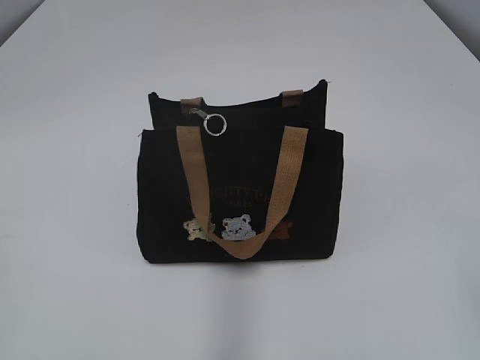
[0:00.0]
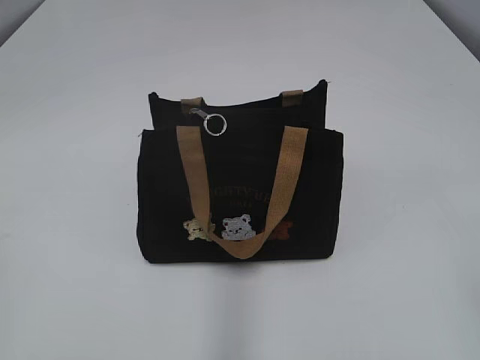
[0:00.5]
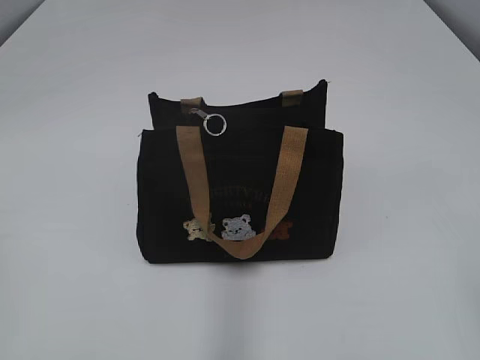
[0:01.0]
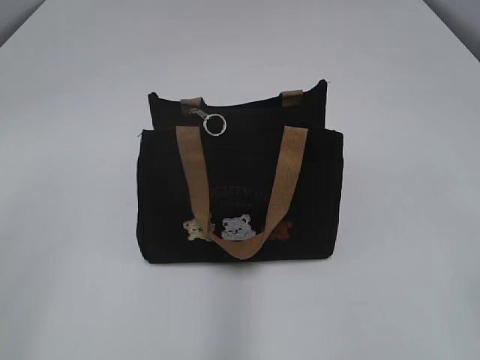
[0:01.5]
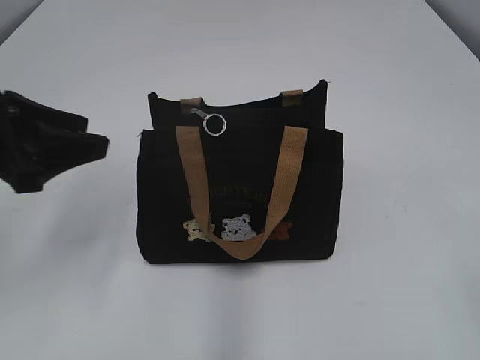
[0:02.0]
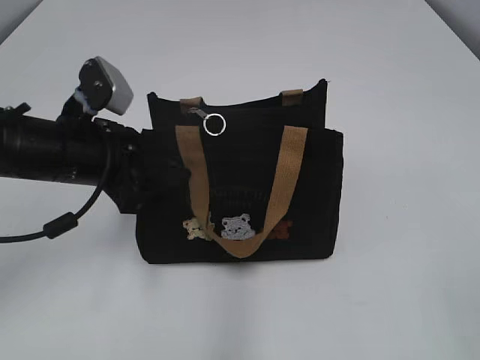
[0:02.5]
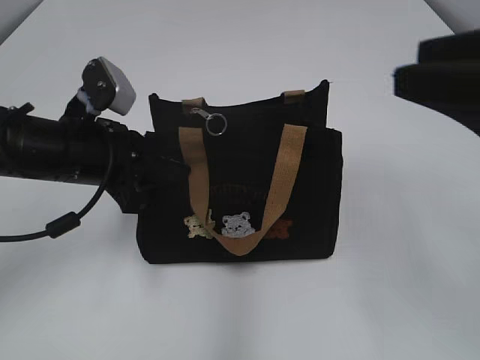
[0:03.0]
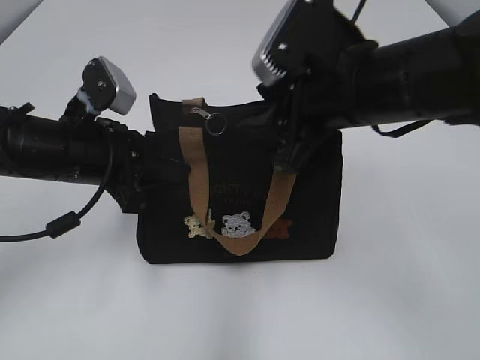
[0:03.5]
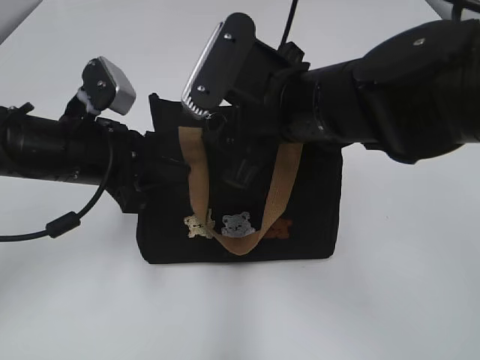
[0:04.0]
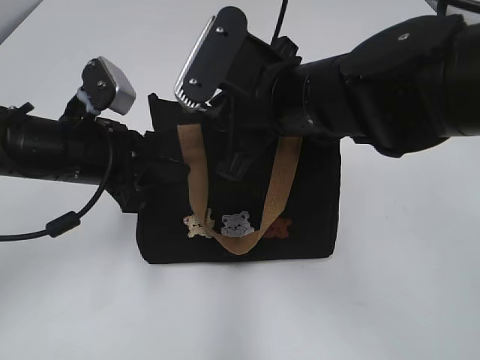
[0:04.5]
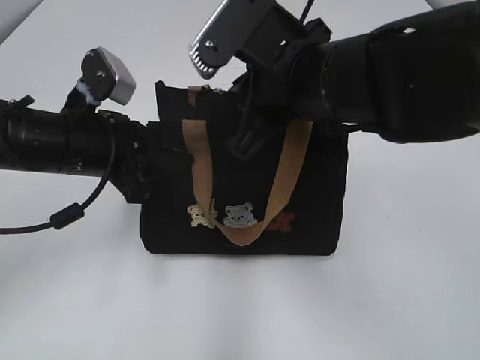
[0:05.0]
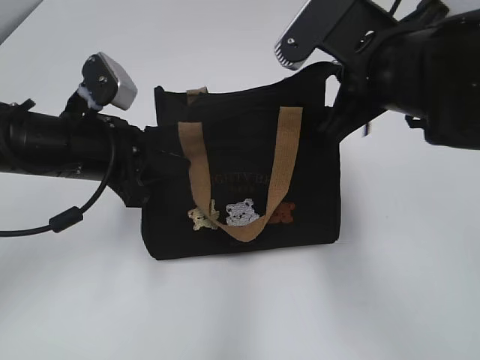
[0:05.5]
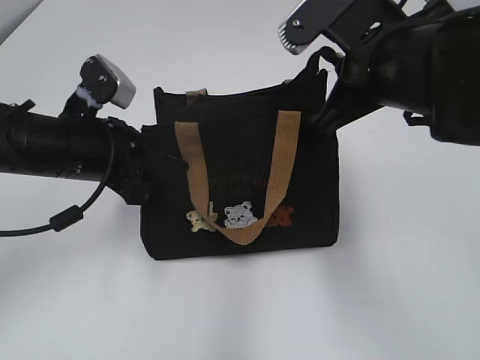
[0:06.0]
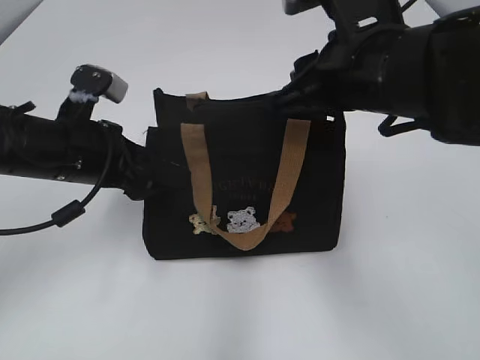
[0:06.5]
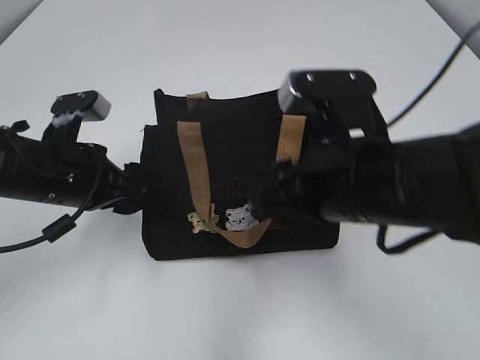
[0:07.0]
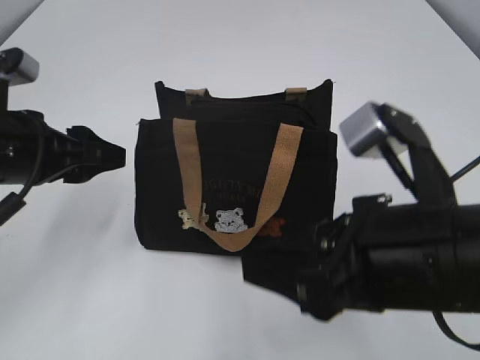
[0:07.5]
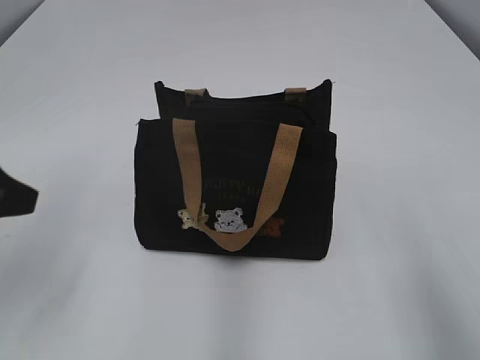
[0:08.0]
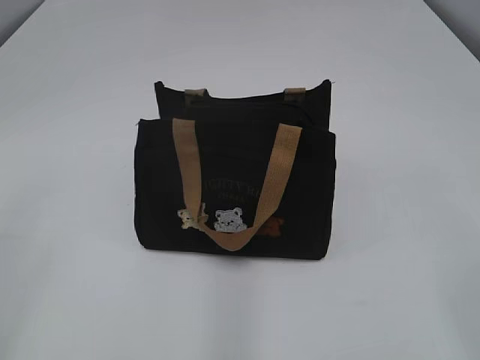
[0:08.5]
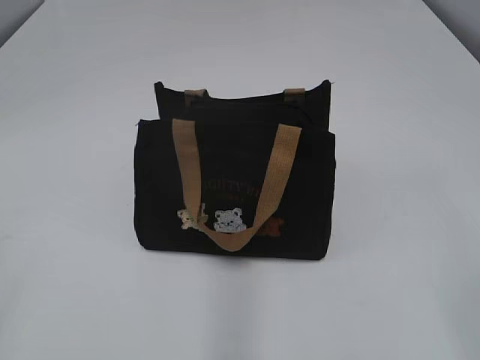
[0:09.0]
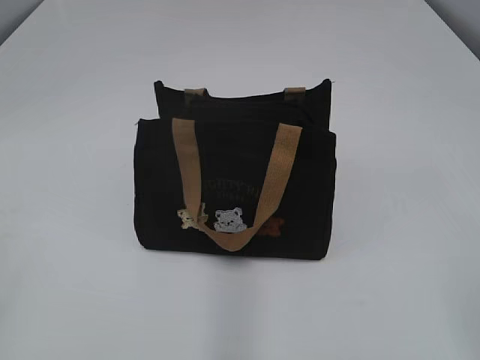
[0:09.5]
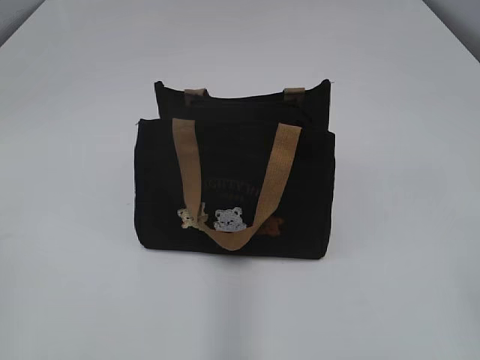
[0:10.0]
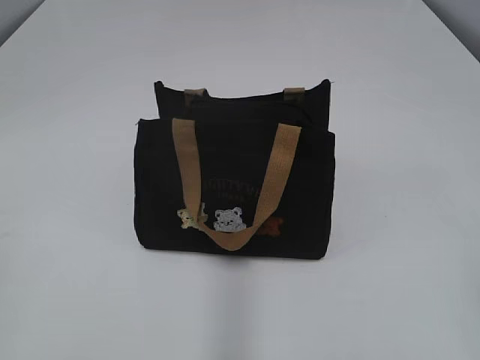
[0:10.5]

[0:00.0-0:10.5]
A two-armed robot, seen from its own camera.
Step, 0:00.0 to 0:06.5: Pull open the zipper with your right hand.
0:02.0 to 0:04.0: The right gripper goes about 35 cm forward and to the left; the left gripper shifts approximately 10 cm to the right, downward and forward, and closes up.
0:04.0 to 0:06.5: The left gripper opens its fingers; the right gripper moves to the right, about 5 cm, and closes.
0:06.5 to 0:08.5: The right gripper goes some 30 cm backward and to the right; the left gripper moves backward, upward and to the left, about 30 cm.

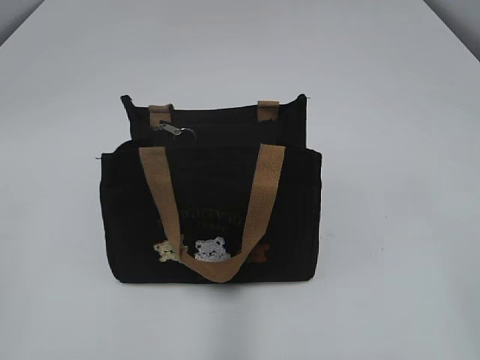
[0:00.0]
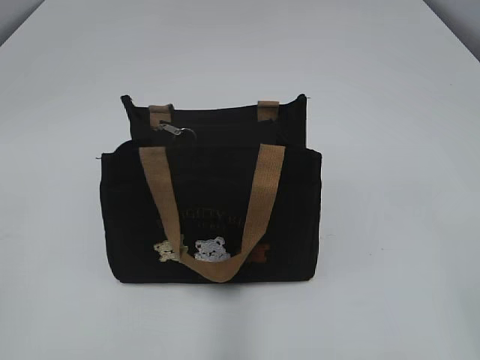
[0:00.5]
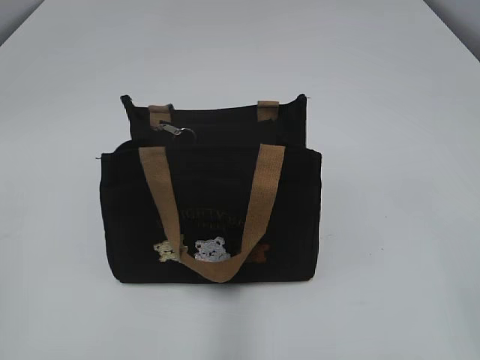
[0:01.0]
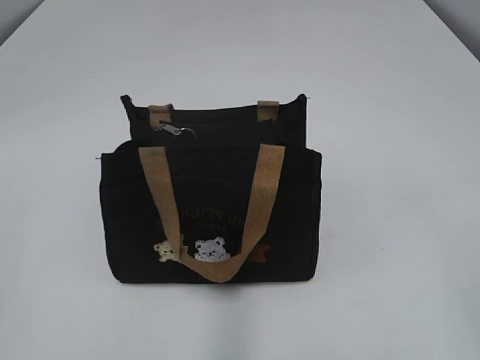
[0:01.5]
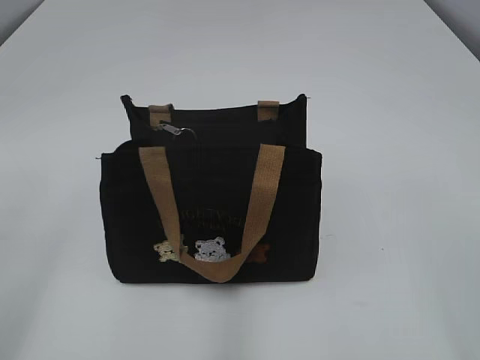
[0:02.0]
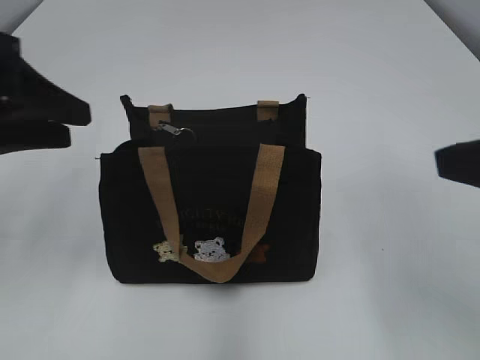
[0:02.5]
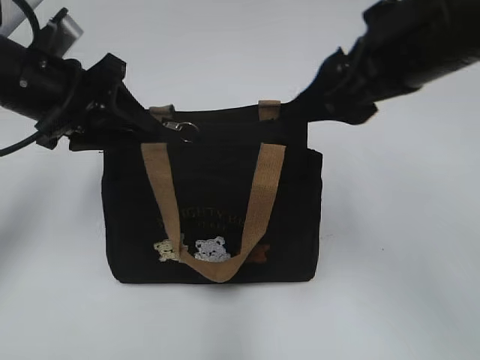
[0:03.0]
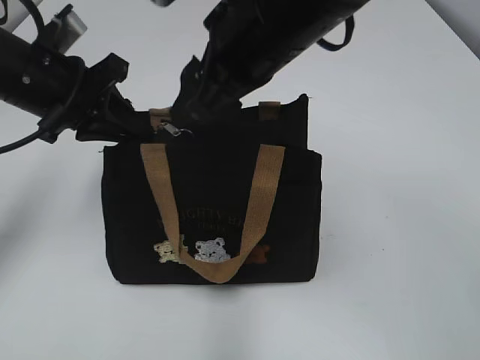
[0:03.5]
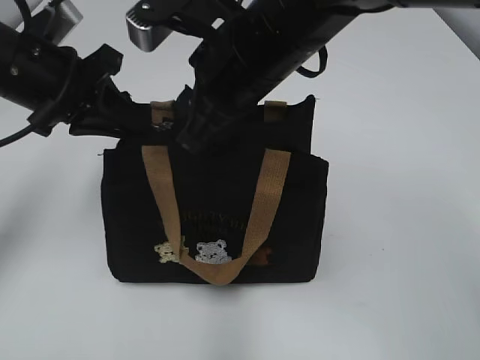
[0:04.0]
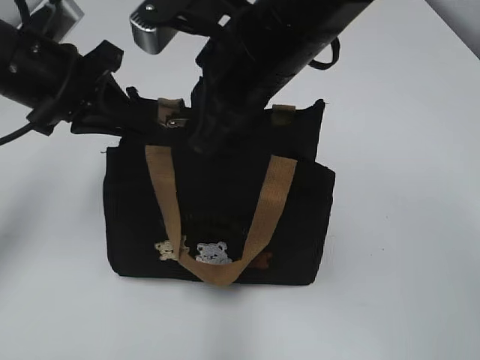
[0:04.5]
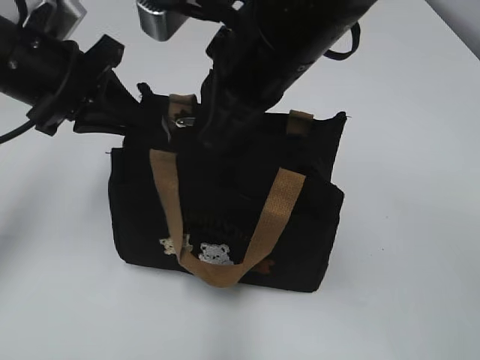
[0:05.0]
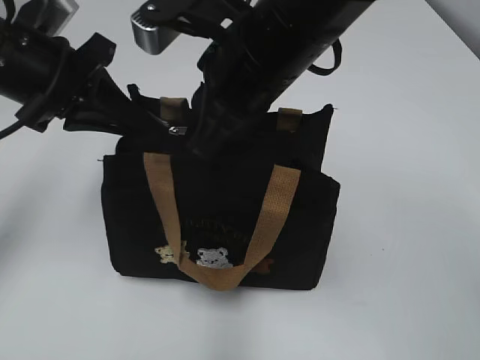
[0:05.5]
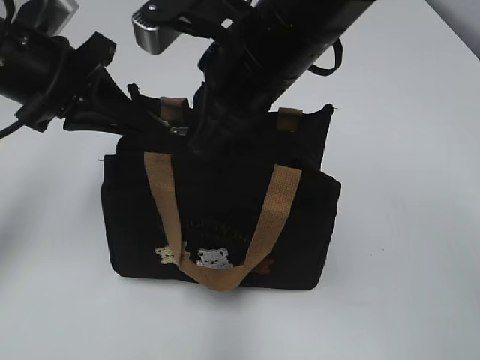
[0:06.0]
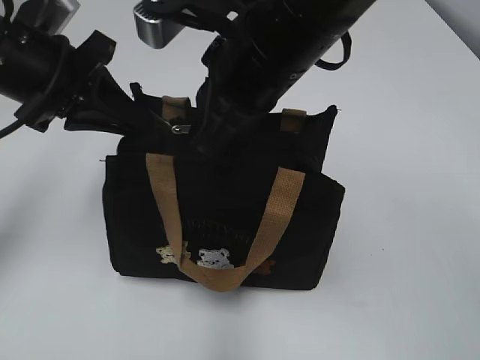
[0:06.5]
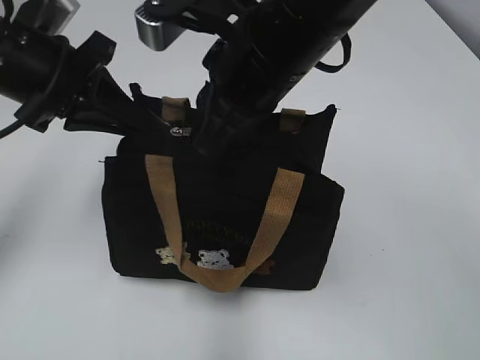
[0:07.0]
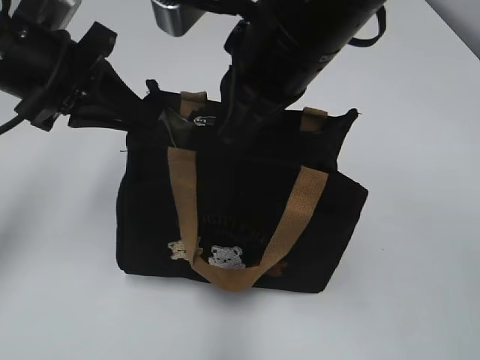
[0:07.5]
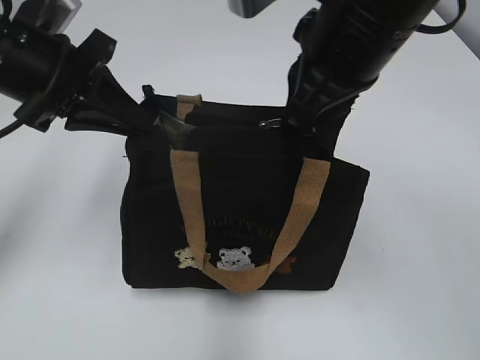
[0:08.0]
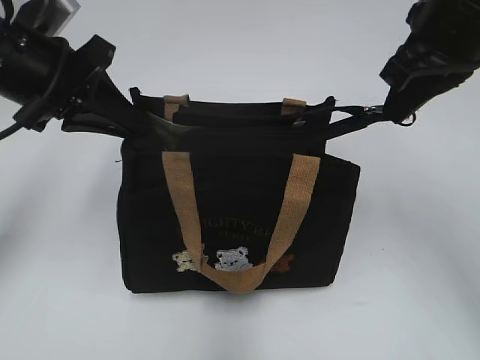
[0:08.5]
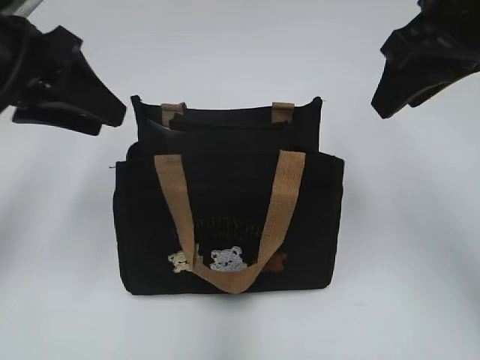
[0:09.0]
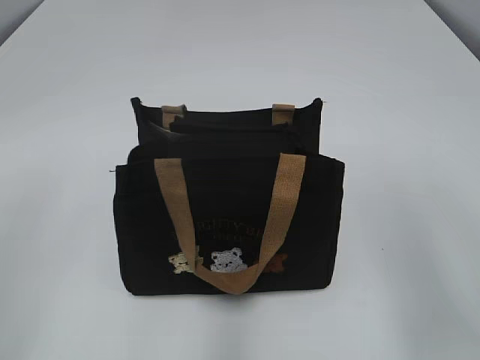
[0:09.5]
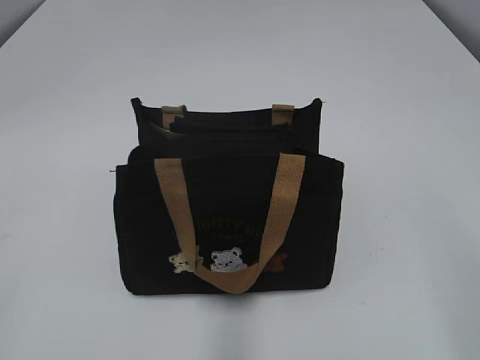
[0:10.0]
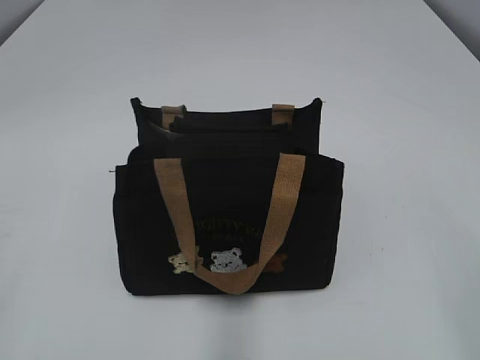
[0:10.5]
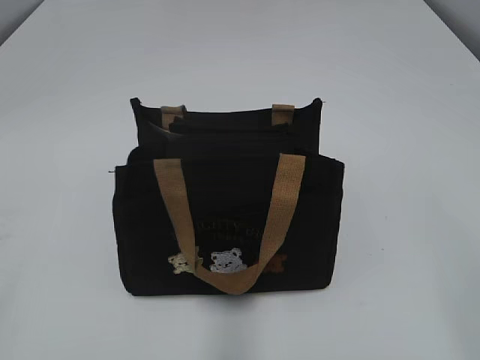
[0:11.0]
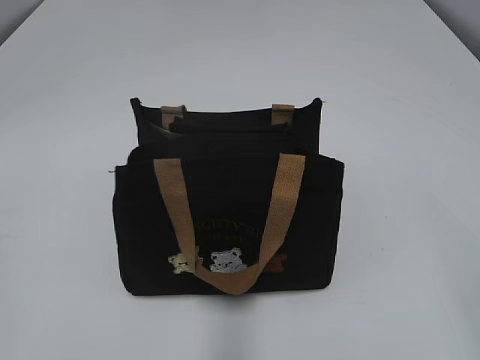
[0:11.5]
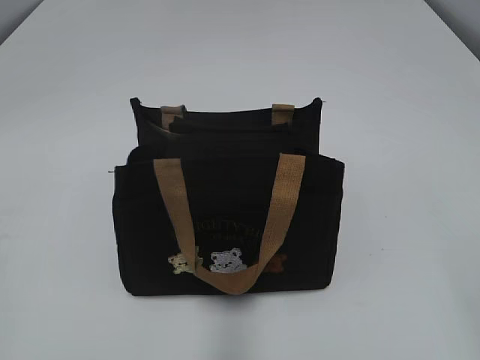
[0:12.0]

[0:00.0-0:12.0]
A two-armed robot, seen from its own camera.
Step, 0:00.0 to 0:08.5: Pull open the zipper with your right hand.
0:02.0 to 0:04.0: The left gripper moves forward, about 30 cm, and closes its fingers. The right gripper heads forward and to the left, covering some 40 cm.
0:04.0 to 0:06.0: The right gripper closes.
0:06.0 to 0:08.0: The right gripper travels to the right by roughly 5 cm.
0:08.0 to 0:10.0: The left gripper shifts about 35 cm backward and to the left, and opens up. The right gripper goes about 30 cm backward and to the right, and opens its fingers.

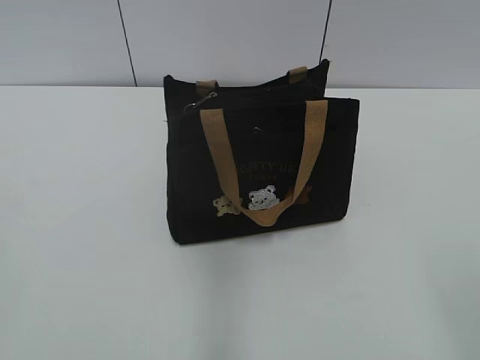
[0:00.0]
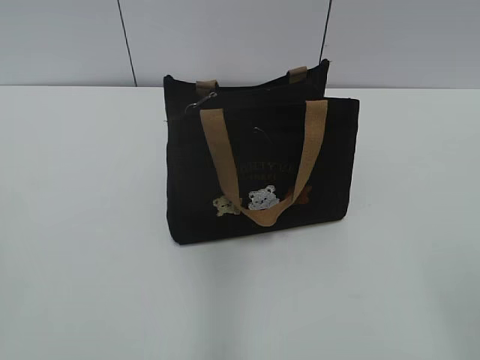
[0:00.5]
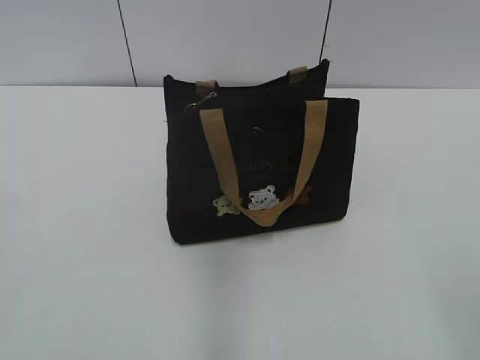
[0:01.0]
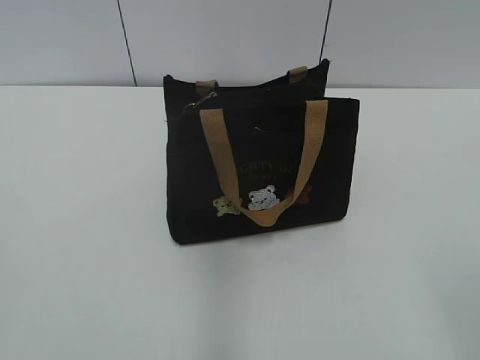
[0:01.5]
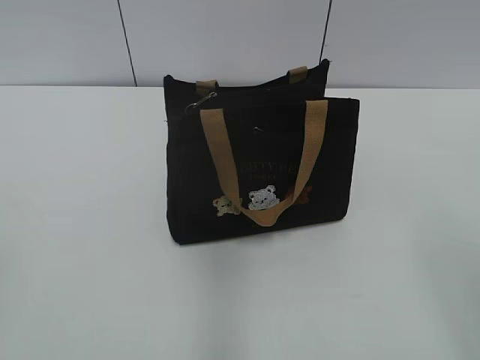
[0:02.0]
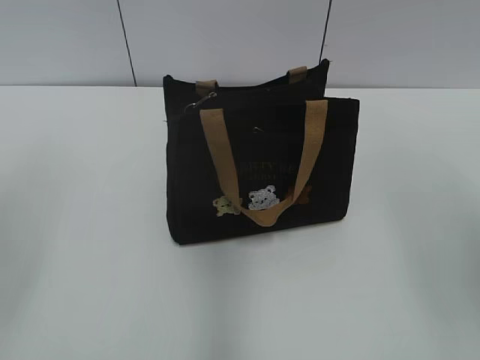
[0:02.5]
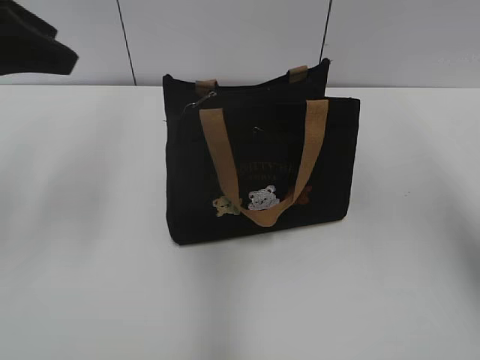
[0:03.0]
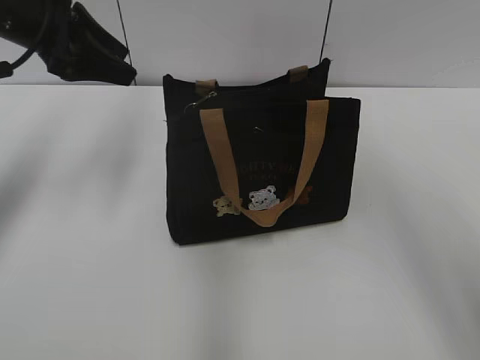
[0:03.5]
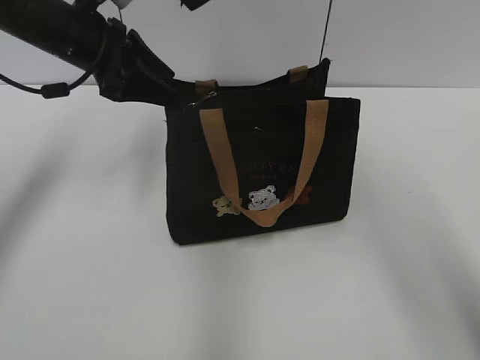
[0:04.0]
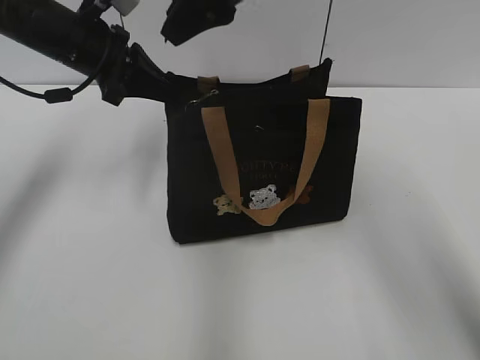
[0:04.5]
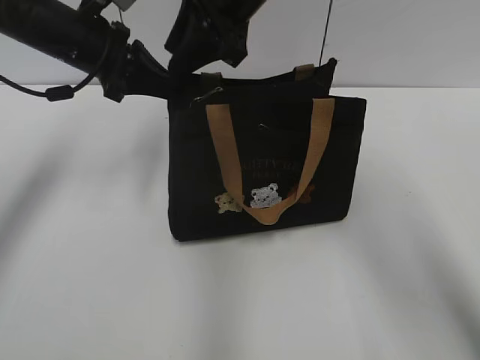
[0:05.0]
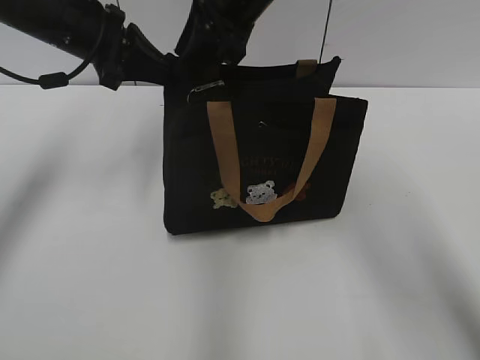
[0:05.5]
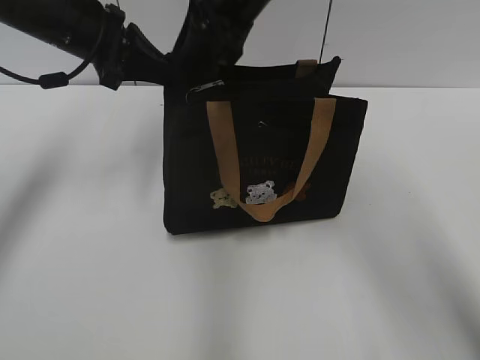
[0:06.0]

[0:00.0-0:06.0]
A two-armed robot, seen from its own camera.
0:02.0 to 0:04.0: The left gripper is displaced forward by about 40 cm. The right gripper moves forward and to the left, approximately 40 cm.
0:04.0 to 0:06.0: The right gripper goes about 5 cm downward. Meanwhile the left gripper closes its fingers.
